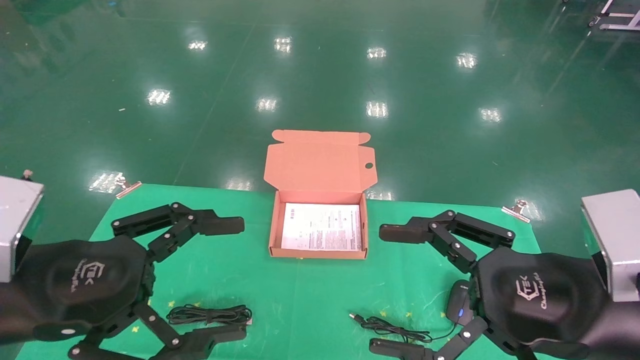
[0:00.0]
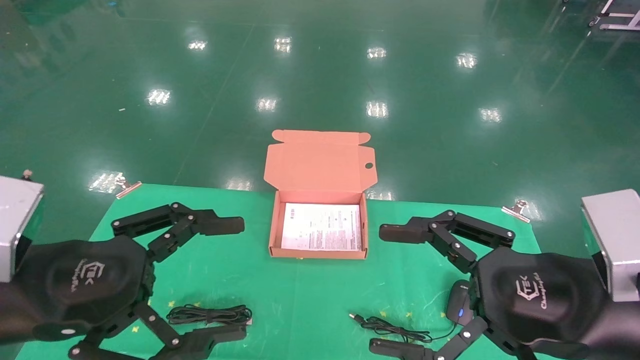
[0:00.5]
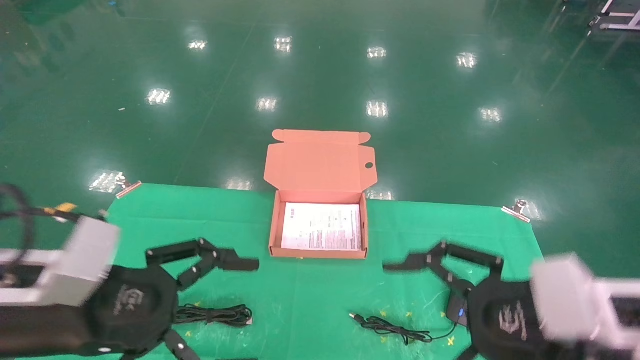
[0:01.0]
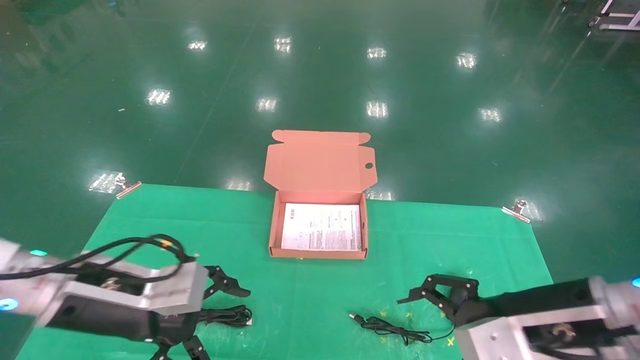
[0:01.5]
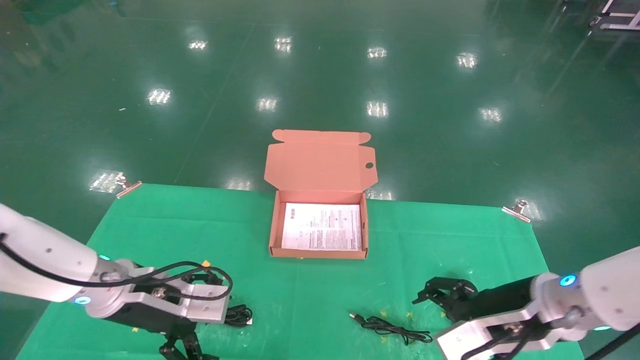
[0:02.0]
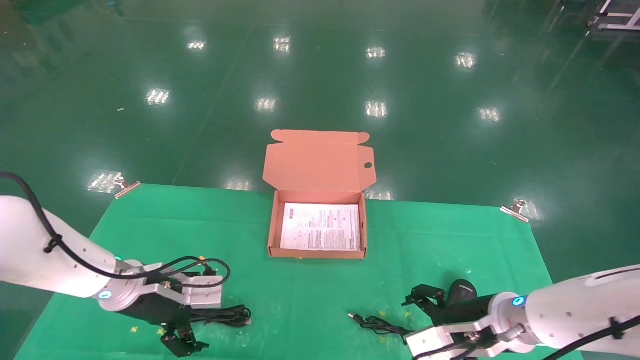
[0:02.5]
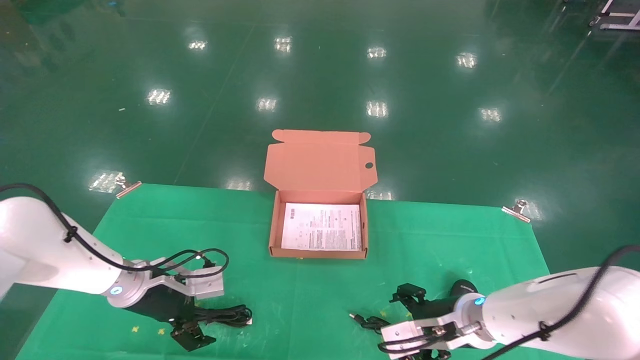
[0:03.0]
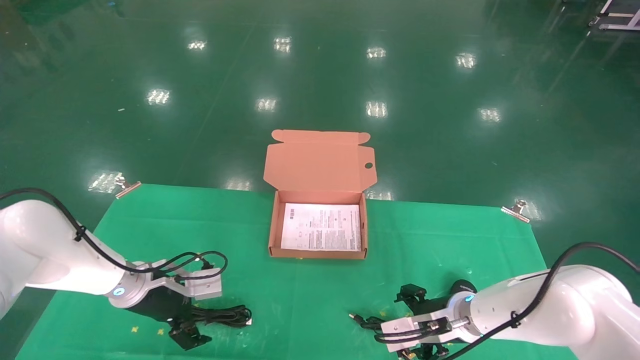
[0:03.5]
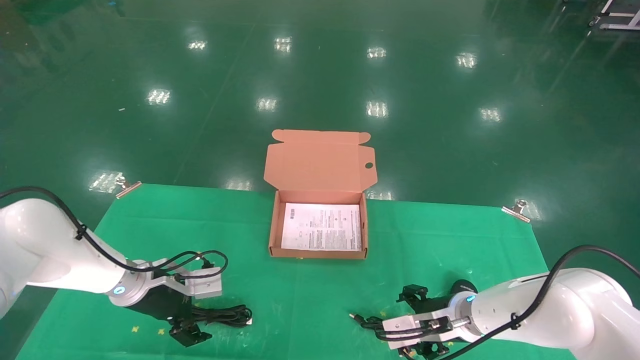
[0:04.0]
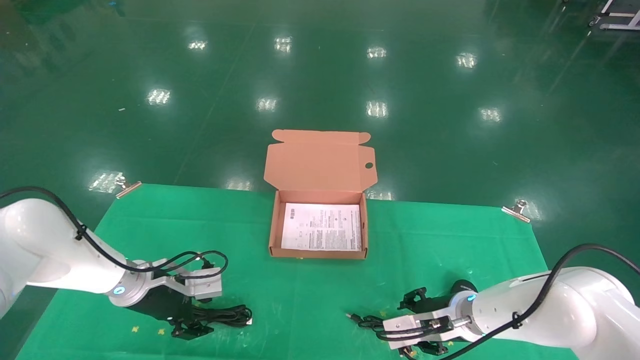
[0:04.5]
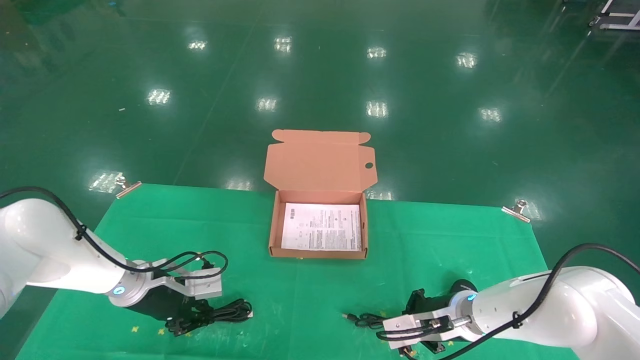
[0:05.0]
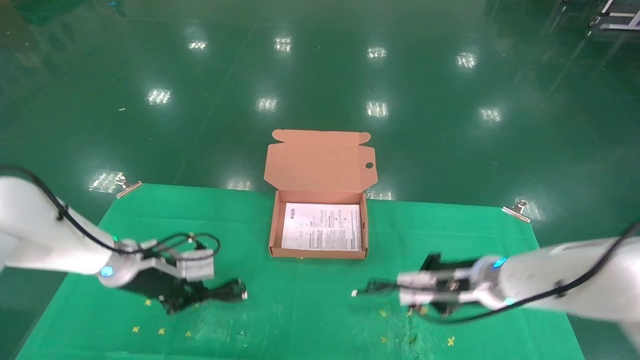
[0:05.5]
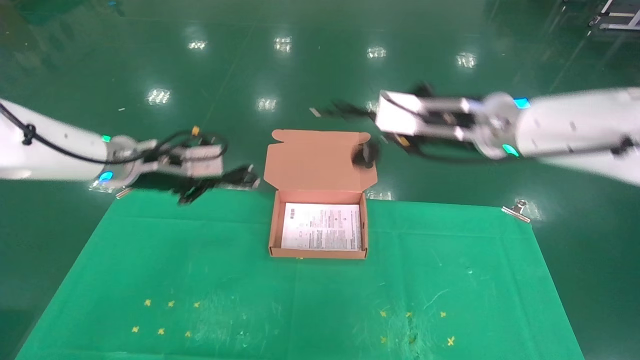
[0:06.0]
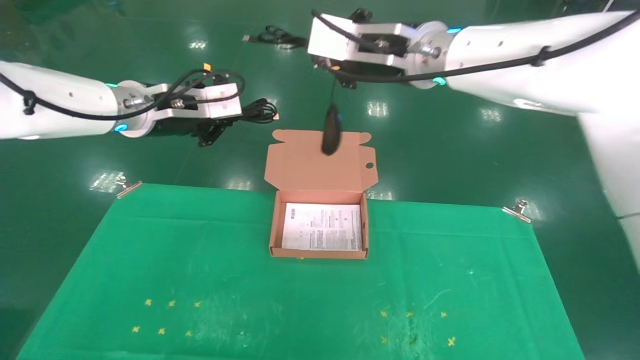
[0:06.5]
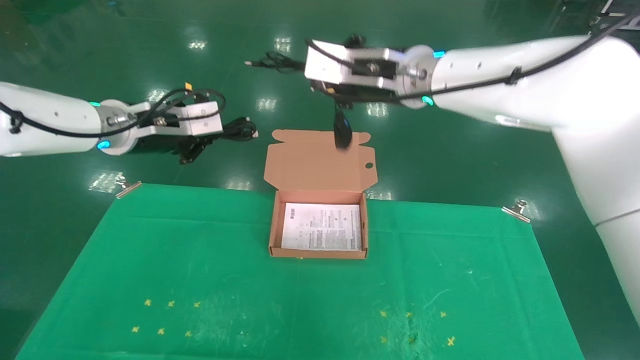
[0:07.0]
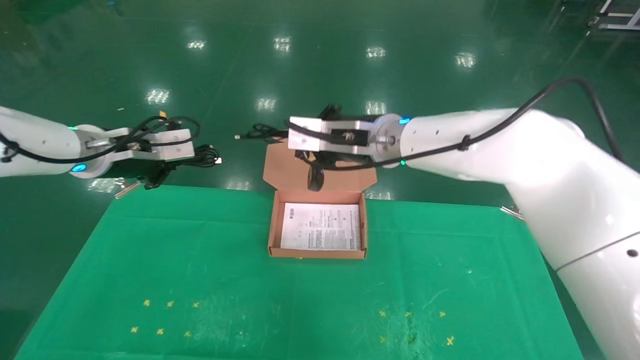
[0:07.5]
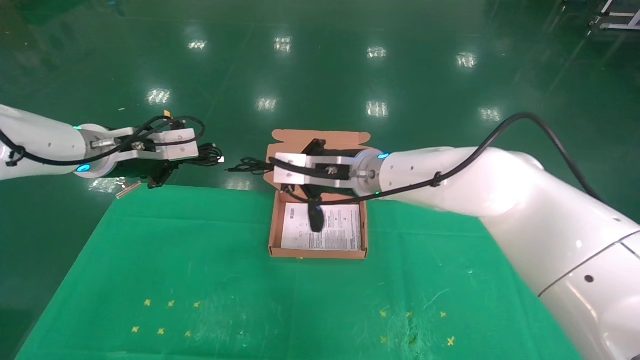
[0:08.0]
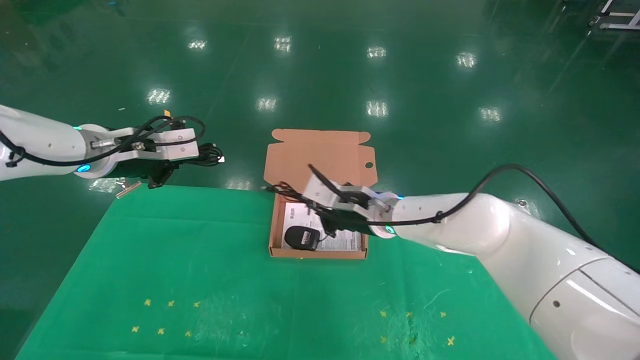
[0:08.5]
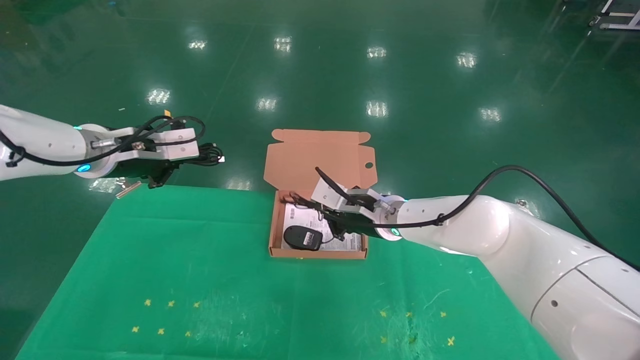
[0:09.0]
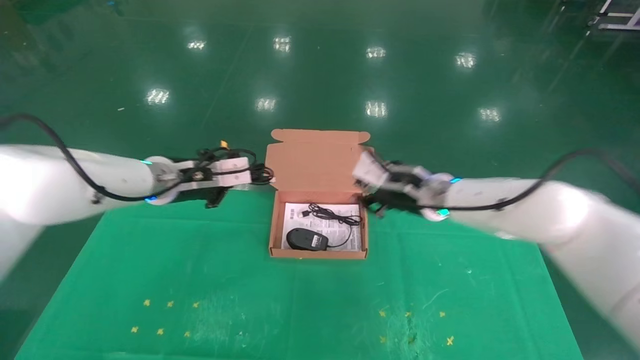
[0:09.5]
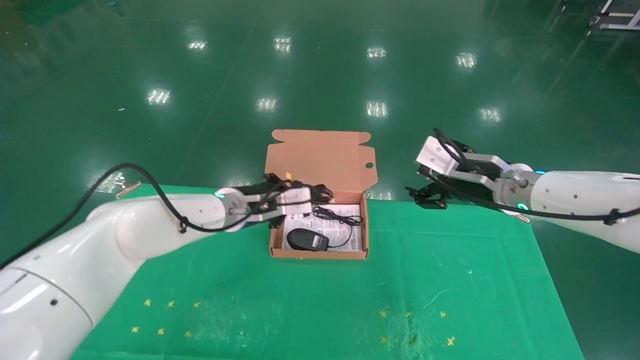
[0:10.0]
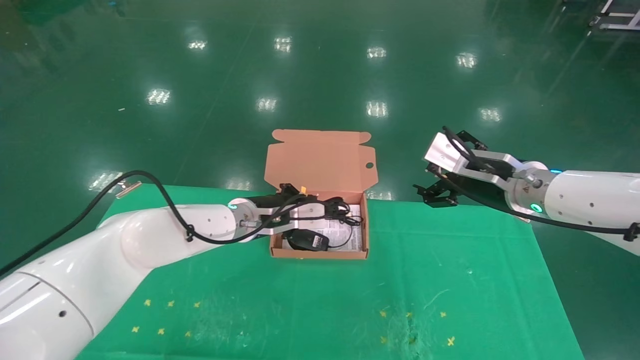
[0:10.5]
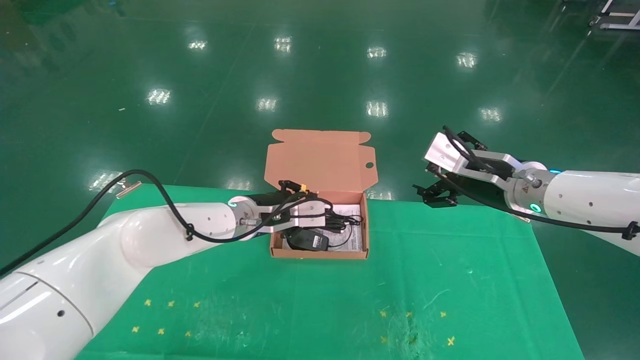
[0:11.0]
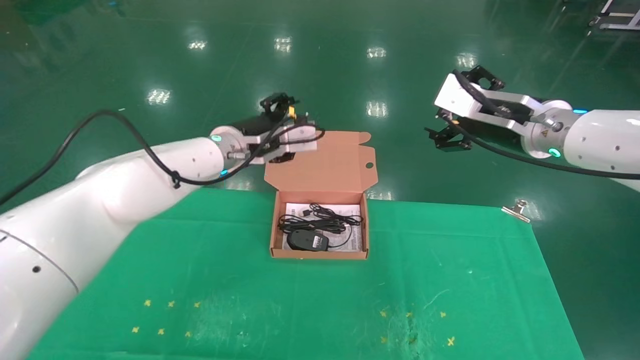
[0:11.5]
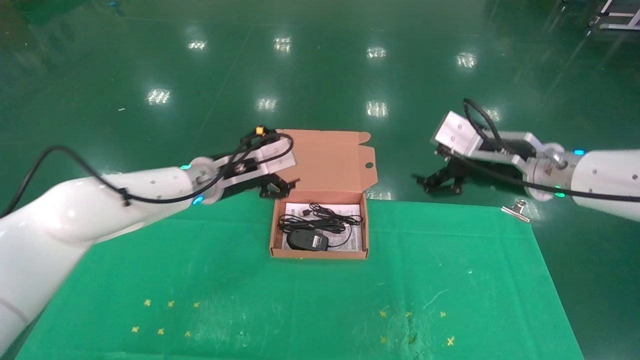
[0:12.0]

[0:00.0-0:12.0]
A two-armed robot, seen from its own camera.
Task of the whole recording: grasp data cable left put into box grasp mouse right put into box.
Step, 0:01.5 to 0:05.5: Grab and pick up both the mouse and power cord from the accessory packaging area at the same time.
Step, 0:06.0 to 0:11.0: Place the mouse and power cord into the box.
0:00.0 to 0:02.0: The grippers both shift forward and downward by about 15 cm.
0:02.0 to 0:04.0: The left gripper is displaced forward and downward by some 10 cm, while the right gripper goes about 15 cm downward and forward.
0:04.0 to 0:06.0: Both grippers move upward, about 25 cm. The left gripper closes. The right gripper closes up.
0:06.0 to 0:08.0: The right gripper is displaced to the left and downward by about 15 cm.
0:08.0 to 0:10.0: The right gripper travels to the right by some 20 cm, and opens its fingers. The left gripper heads to the right, downward and forward, covering roughly 20 cm.
0:10.0 to 0:12.0: The left gripper shifts by approximately 5 cm, and opens.

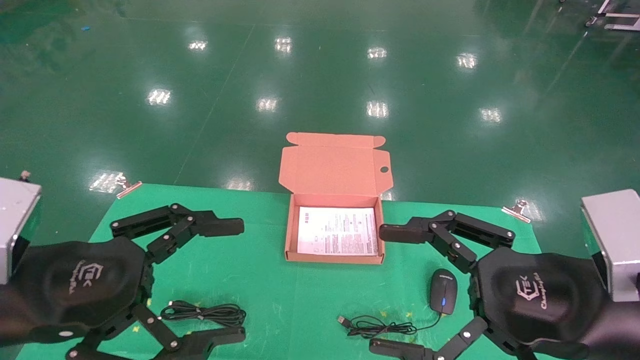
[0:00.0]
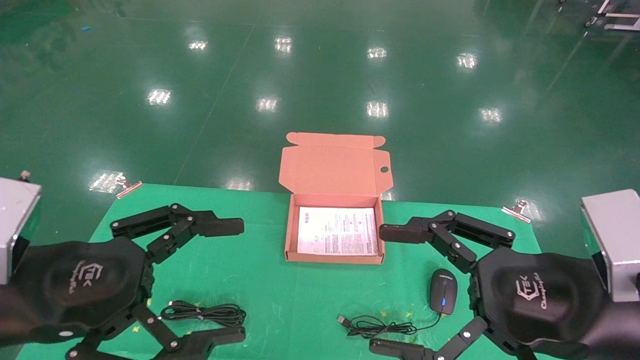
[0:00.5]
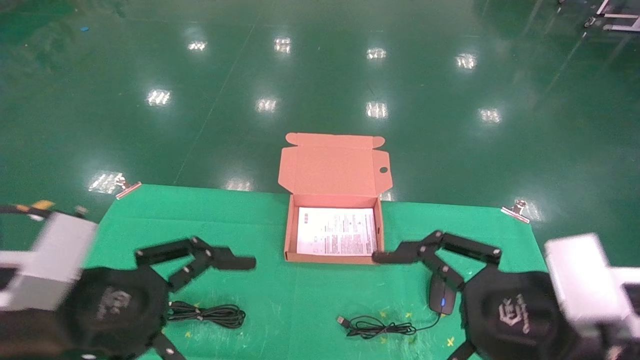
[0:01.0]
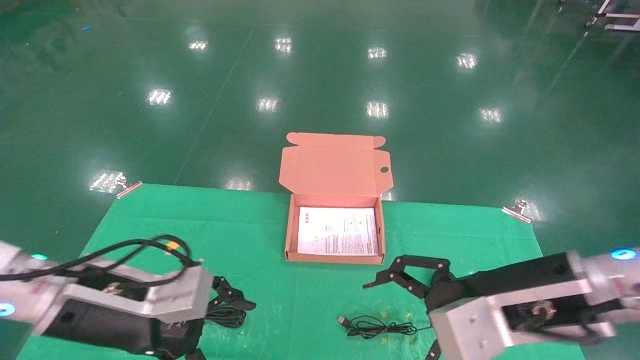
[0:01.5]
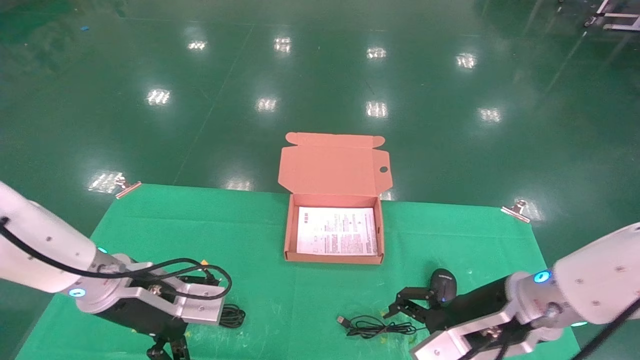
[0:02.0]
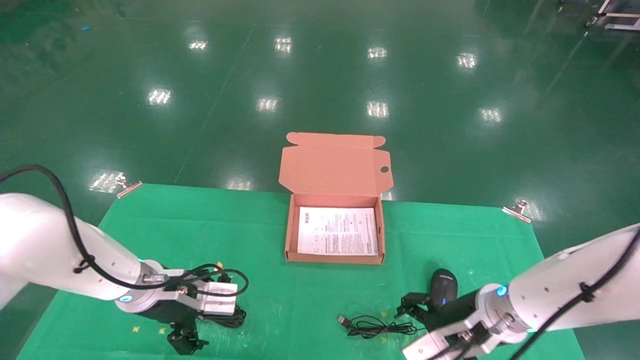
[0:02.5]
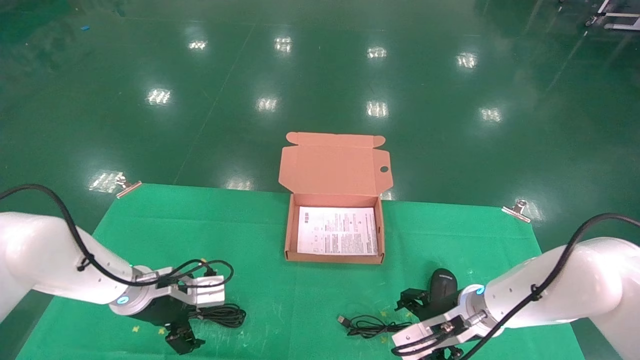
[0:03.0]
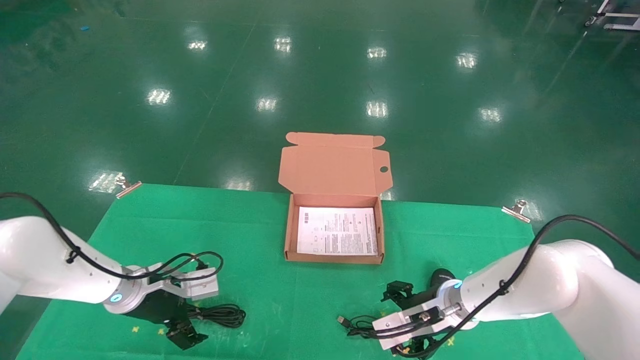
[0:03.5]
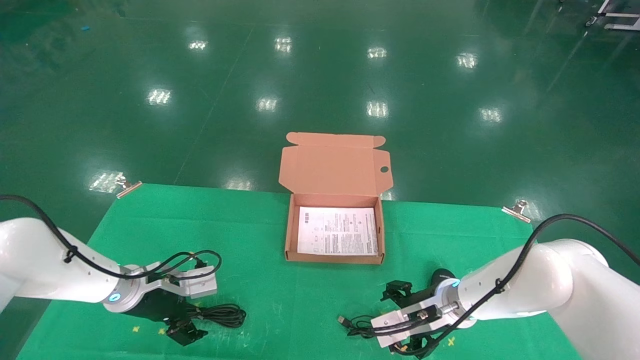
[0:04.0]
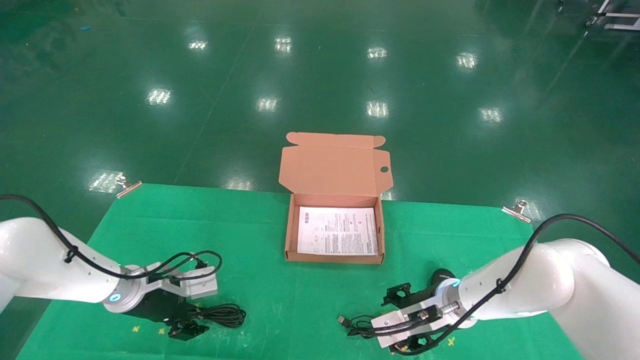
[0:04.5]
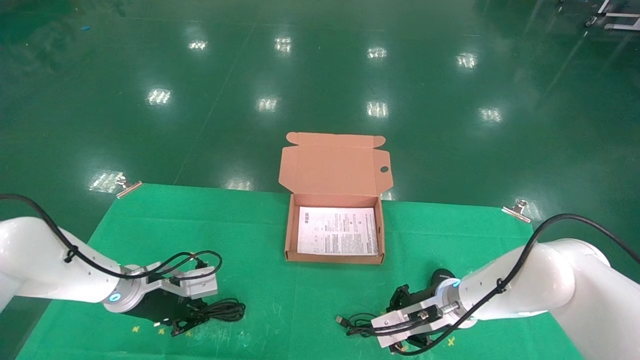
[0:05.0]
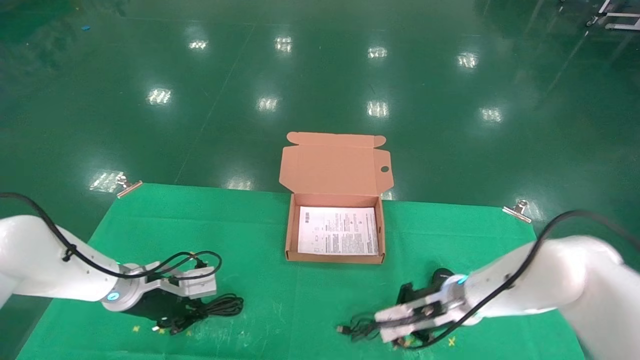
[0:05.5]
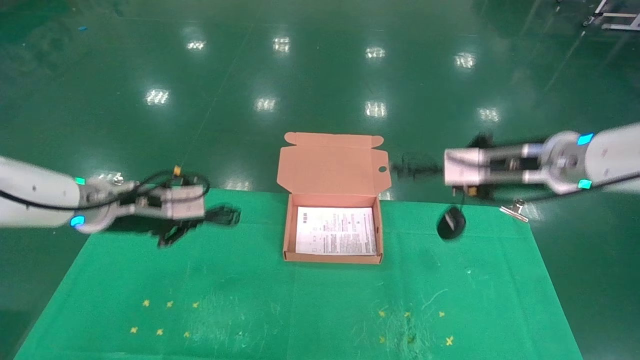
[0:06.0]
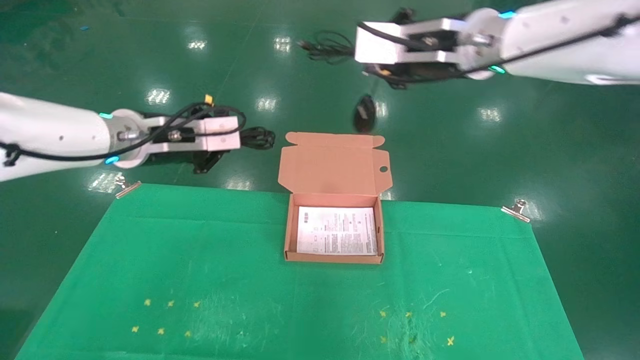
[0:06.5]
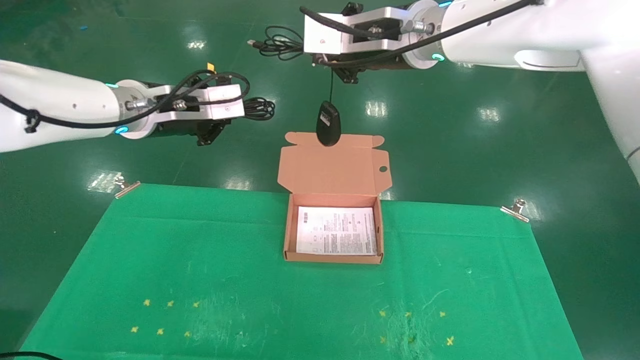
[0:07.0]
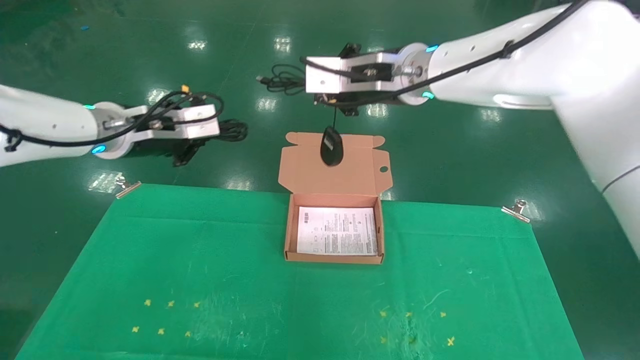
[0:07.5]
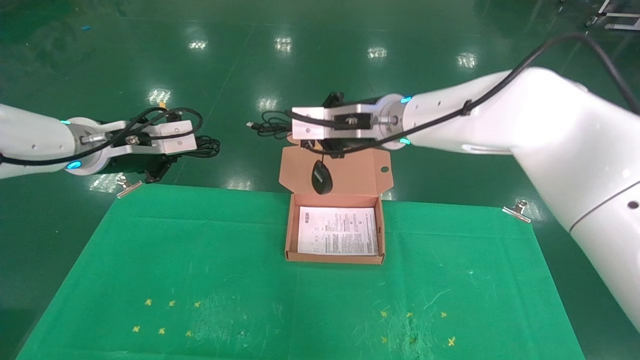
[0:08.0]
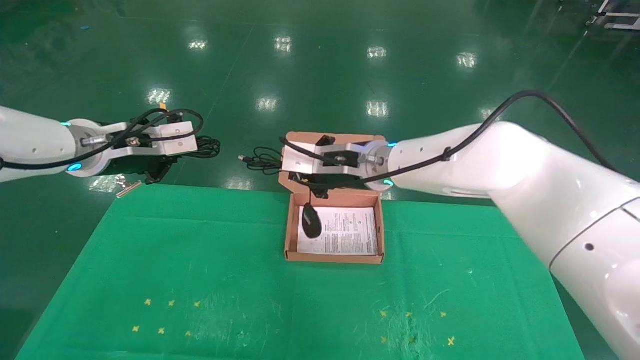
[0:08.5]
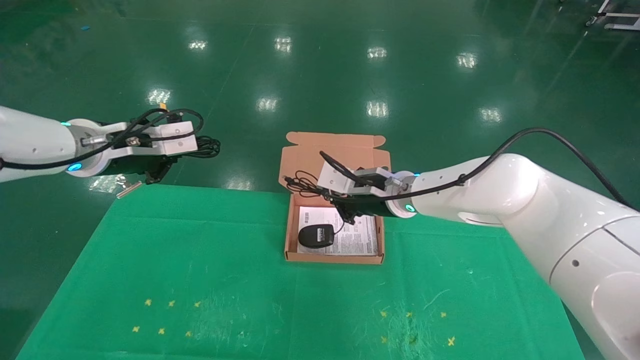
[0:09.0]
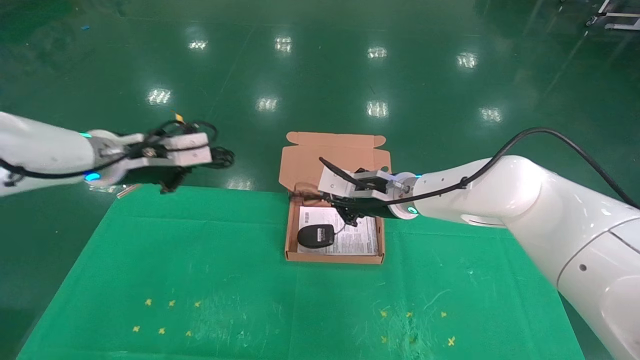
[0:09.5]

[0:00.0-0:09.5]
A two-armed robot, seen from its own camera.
Task of the whole recording: grasp data cable left put into box grasp mouse right put into box.
Step, 0:01.0 to 0:05.0: Grab and pick up both the mouse and power cord from the accessory packaging area at the same time.
0:00.0 to 0:02.0: Both grippers travel together forward and downward, approximately 15 cm.
0:02.0 to 0:04.0: The right gripper shifts roughly 15 cm forward and downward. The left gripper goes roughly 15 cm forward, downward and to the left.
0:04.0 to 0:05.5: The left gripper closes up. Meanwhile the right gripper shifts by some 5 cm, and closes.
0:05.5 to 0:07.5: The right gripper moves upward and to the left, about 30 cm. Meanwhile the left gripper shifts about 25 cm upward.
0:07.5 to 0:09.5: The right gripper goes some 20 cm downward.
